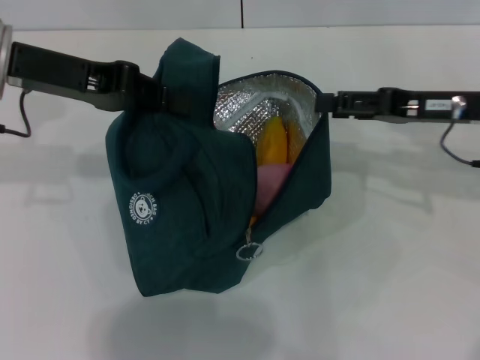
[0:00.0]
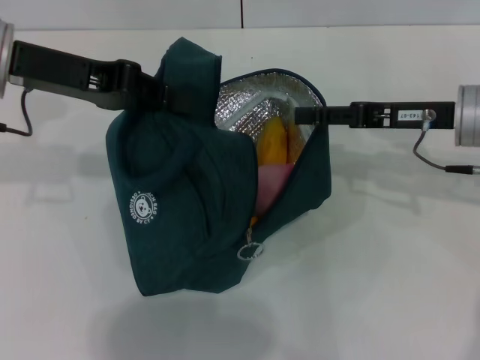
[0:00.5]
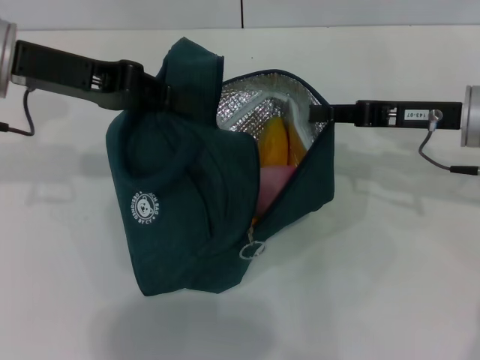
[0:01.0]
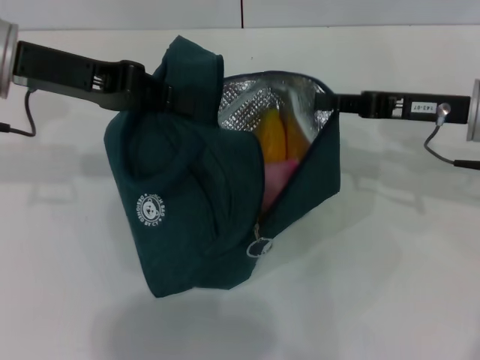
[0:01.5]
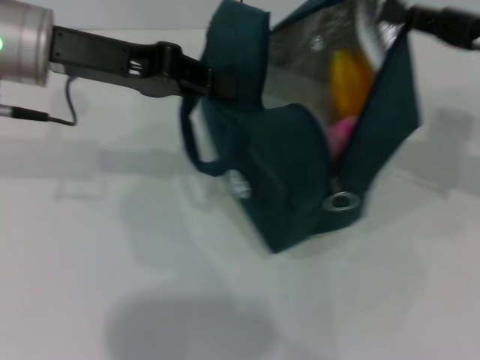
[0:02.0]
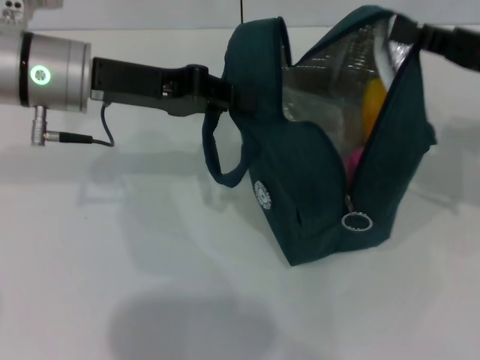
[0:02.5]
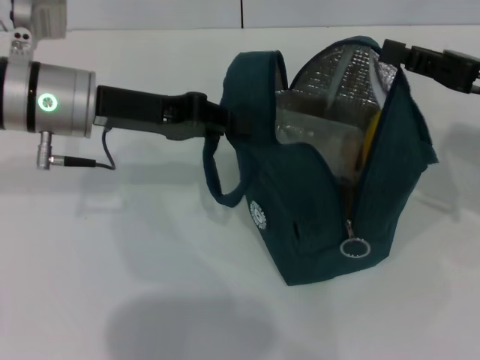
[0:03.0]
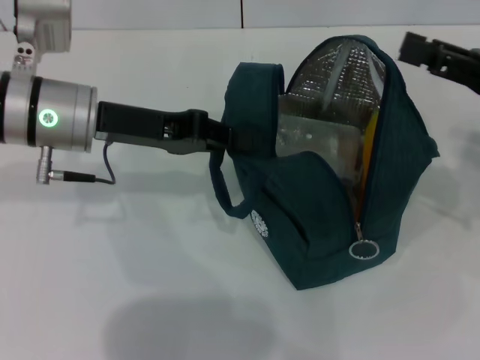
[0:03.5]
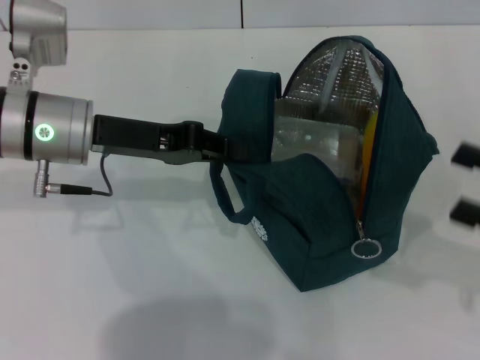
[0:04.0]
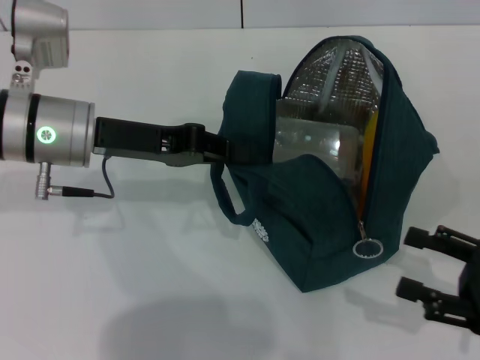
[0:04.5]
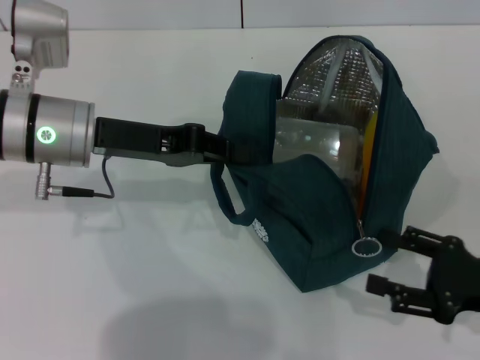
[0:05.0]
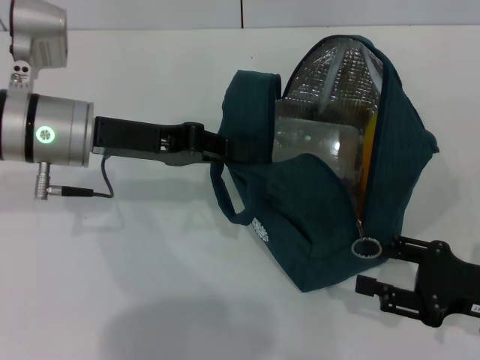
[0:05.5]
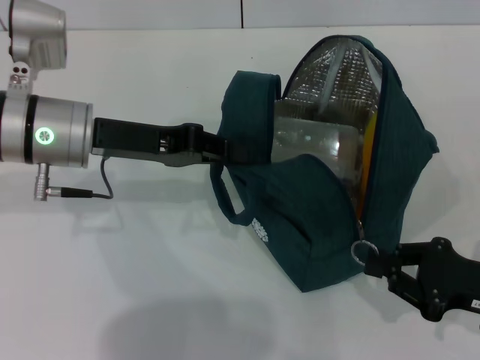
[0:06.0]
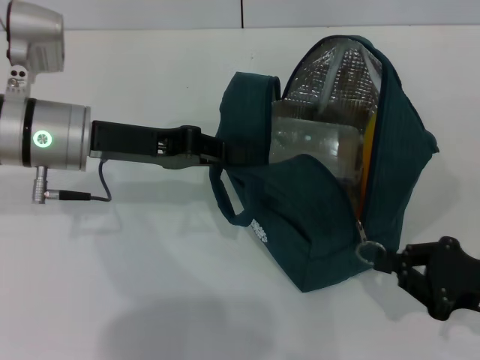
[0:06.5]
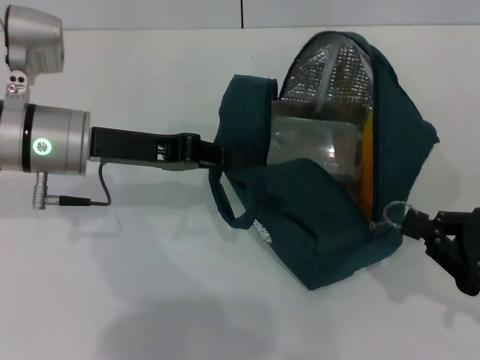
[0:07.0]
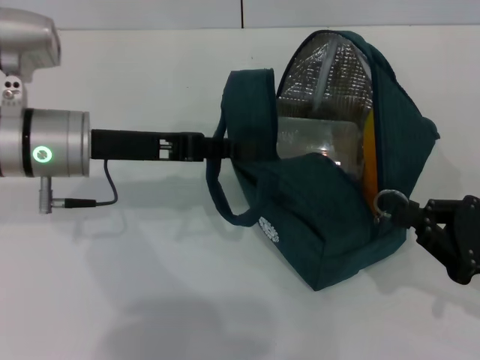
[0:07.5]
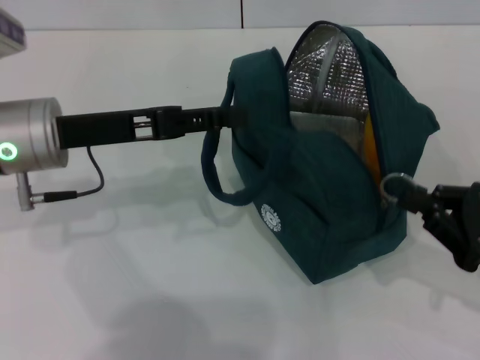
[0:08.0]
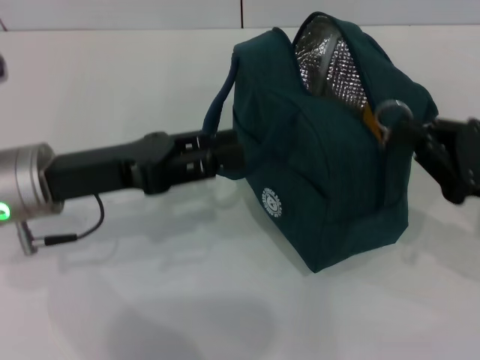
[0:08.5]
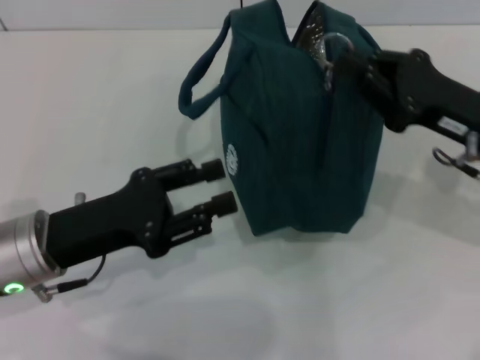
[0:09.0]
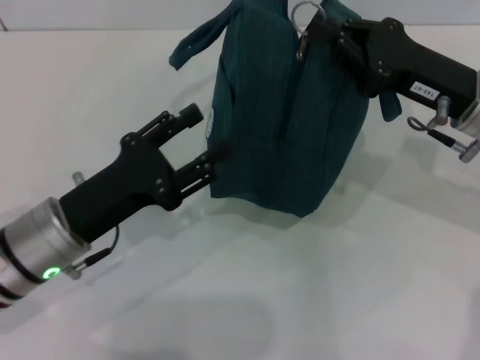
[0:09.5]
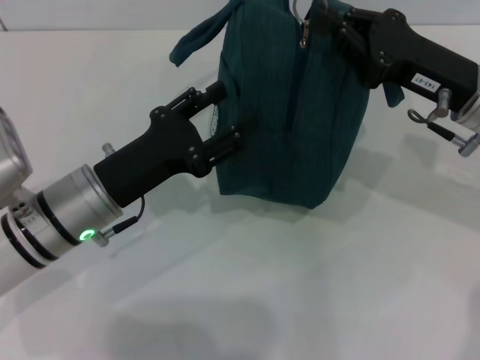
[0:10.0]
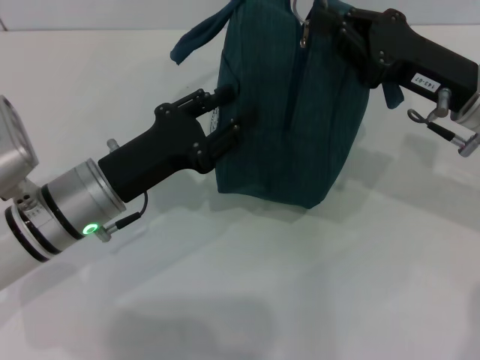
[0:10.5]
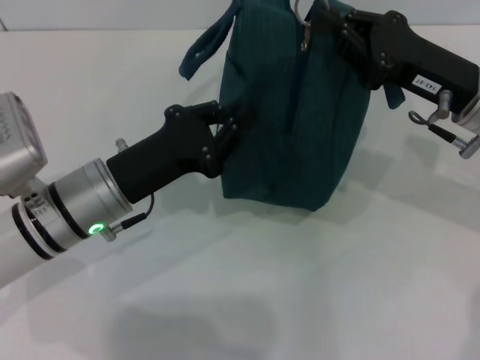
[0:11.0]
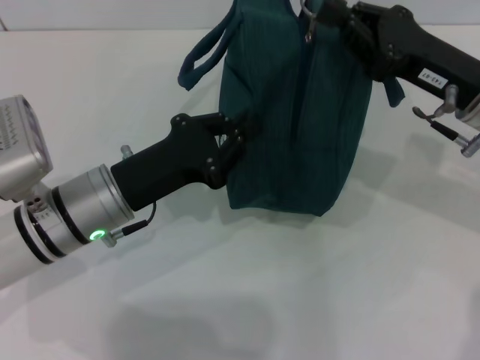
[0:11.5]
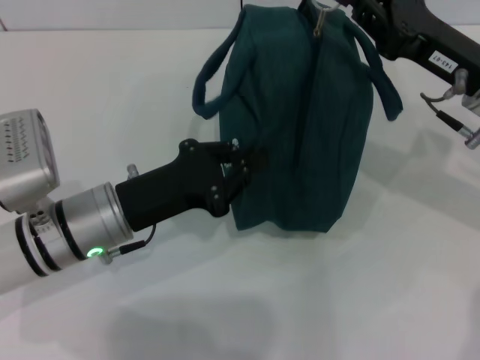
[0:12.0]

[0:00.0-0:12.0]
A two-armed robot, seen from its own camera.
Step, 0:00.0 to 0:03.0: Hold the lunch bag with your right hand.
Step, 0:03.5 to 0:08.0: Hold the lunch bag with your left hand.
0:00.0 to 0:02.0: The right gripper heads upward, covering about 5 cm, and closes.
0:02.0 to 0:04.0: The right gripper travels backward, downward and to the right by some 15 cm, and opens. The left gripper moves downward, some 10 cm.
0:04.0 to 0:06.0: The right gripper is displaced downward by roughly 10 cm, and closes.
0:06.0 to 0:08.0: The left gripper opens up.
0:08.0 to 0:10.0: The right gripper is displaced forward, to the left and upward by approximately 15 cm. The left gripper shifts about 10 cm downward.
0:10.0 to 0:12.0: The left gripper closes up.

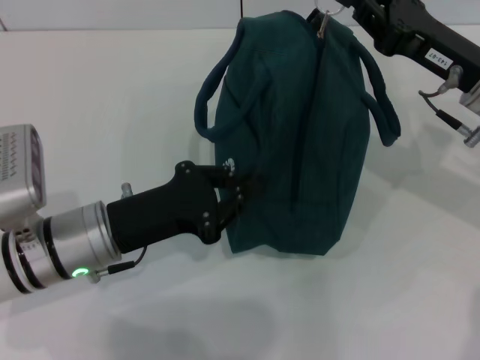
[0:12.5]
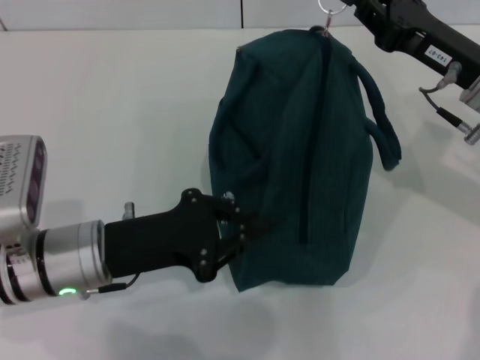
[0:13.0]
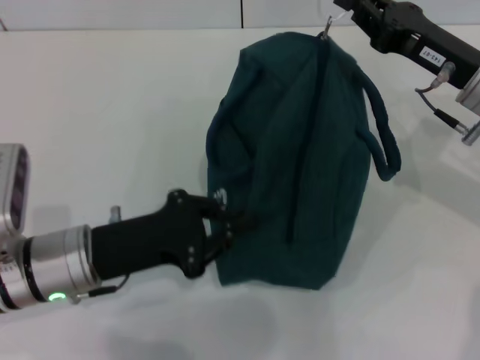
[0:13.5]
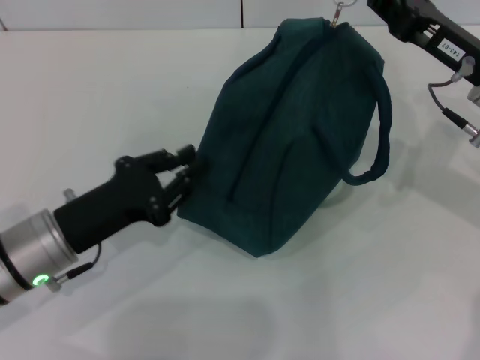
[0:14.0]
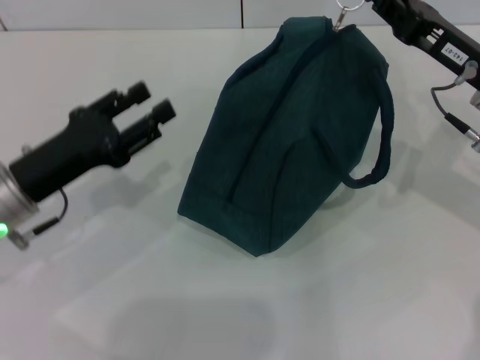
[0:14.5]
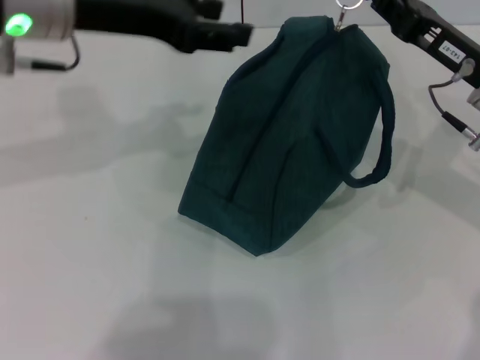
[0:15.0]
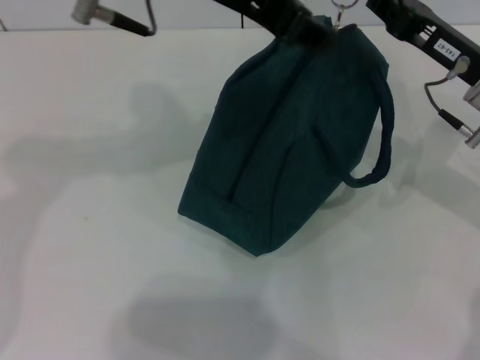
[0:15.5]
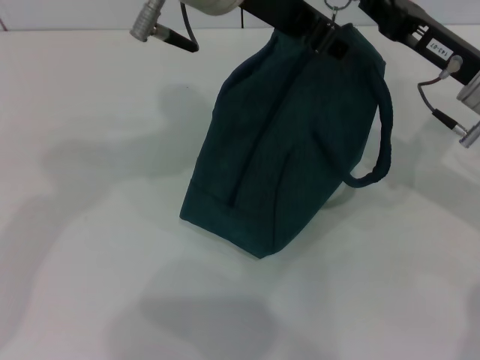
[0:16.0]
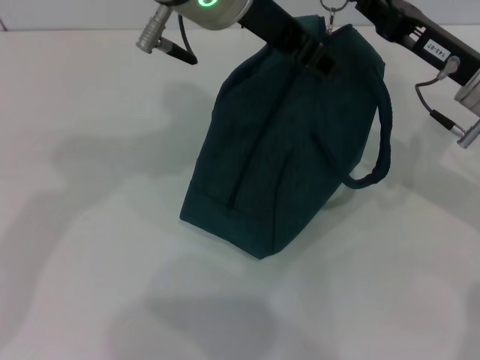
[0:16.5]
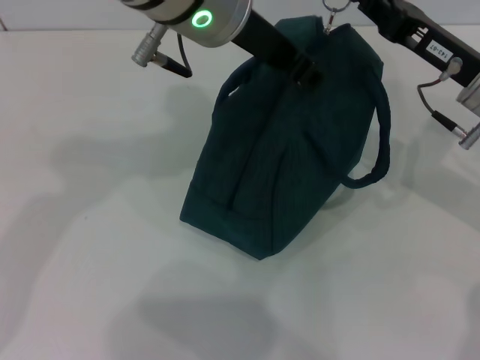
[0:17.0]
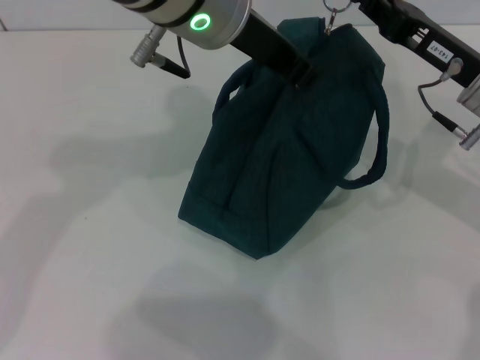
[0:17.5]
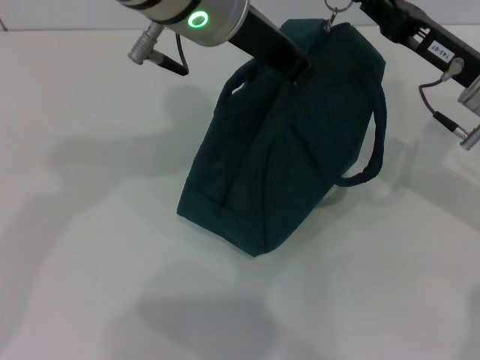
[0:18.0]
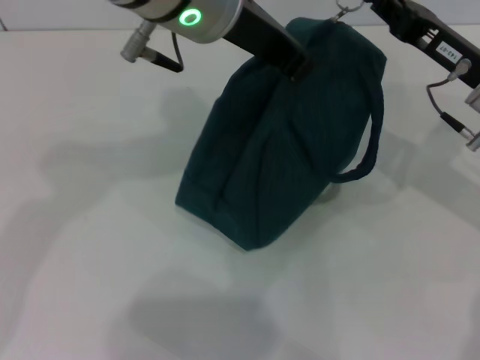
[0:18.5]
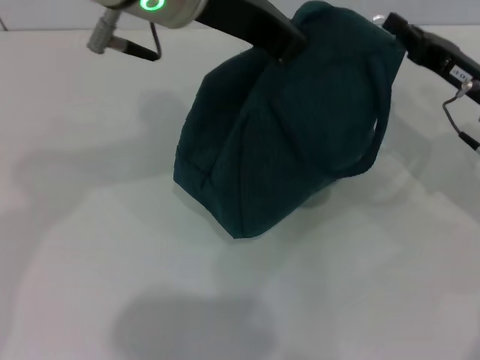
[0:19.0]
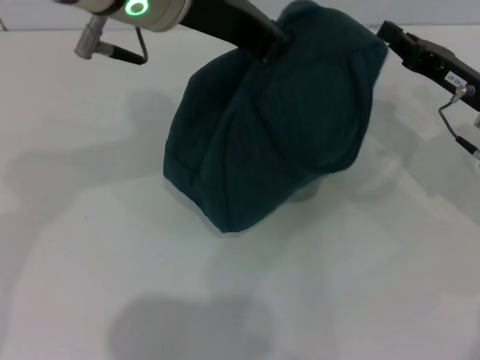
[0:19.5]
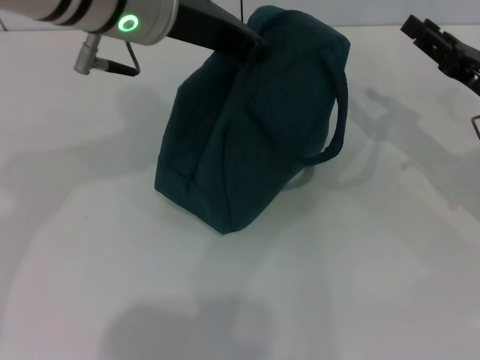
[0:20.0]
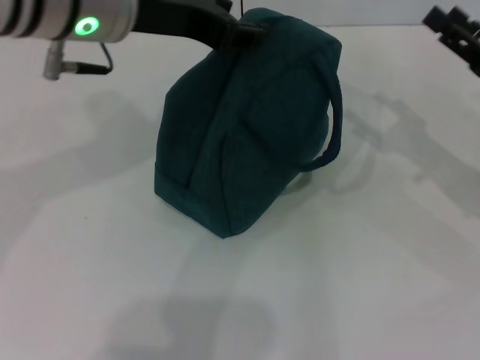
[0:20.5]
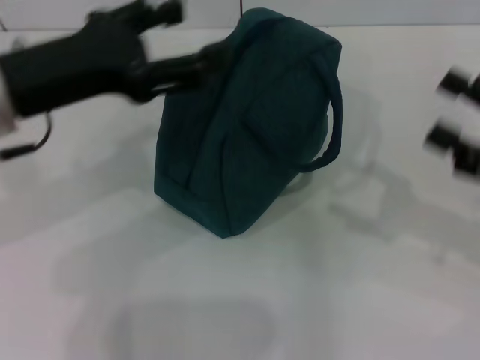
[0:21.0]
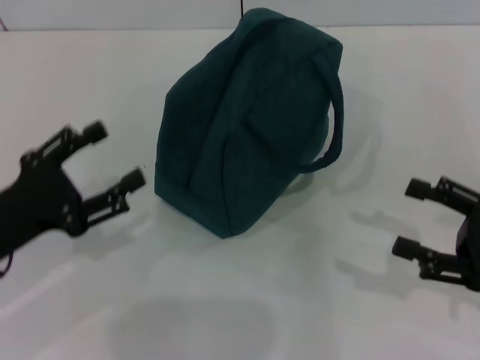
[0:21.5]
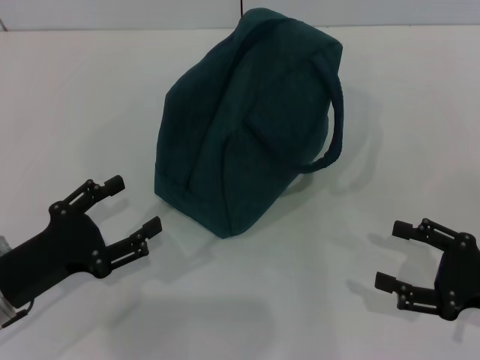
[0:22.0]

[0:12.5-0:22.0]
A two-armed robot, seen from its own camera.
Step, 0:12.5 to 0:19.5: Zip up the lunch bag with your right hand.
0:12.5 to 0:14.5: The left gripper shifts approximately 5 cm to the left, and opens its fingers.
0:14.5 to 0:16.5: The left gripper is displaced upward and to the right by some 30 cm.
0:16.5 to 0:18.0: The left gripper closes.
0:18.0 to 0:20.0: The left gripper moves to the left, approximately 5 cm; the right gripper moves to the right, approximately 5 cm.
0:20.0 to 0:22.0: The left gripper is displaced downward, to the left and backward by about 30 cm, and opens its fingers. The right gripper shifts roughly 15 cm backward and downward, and opens its fingers.
